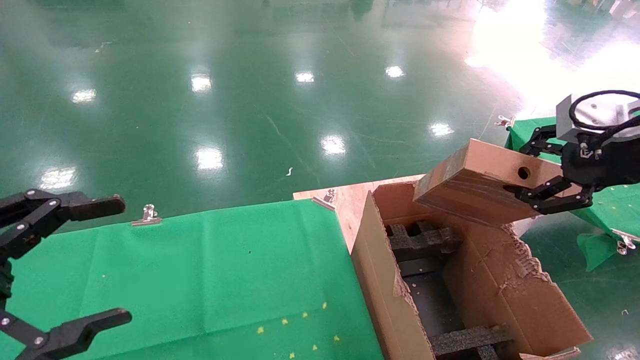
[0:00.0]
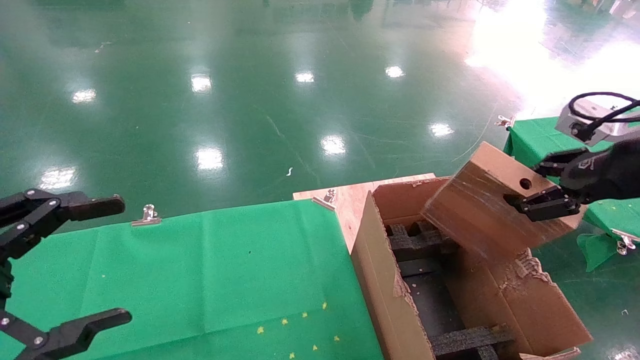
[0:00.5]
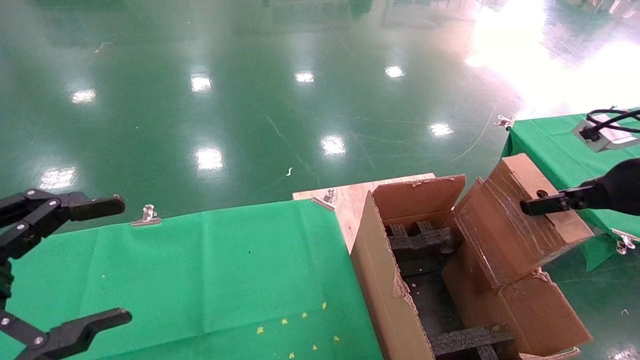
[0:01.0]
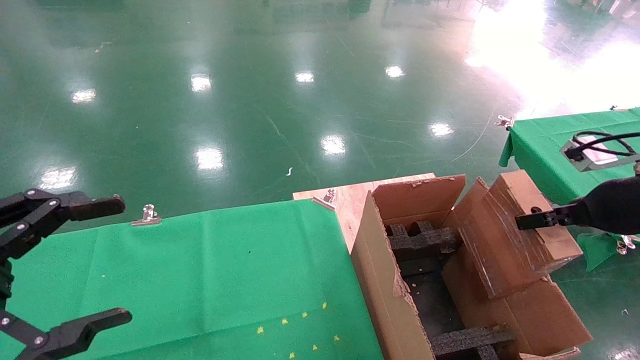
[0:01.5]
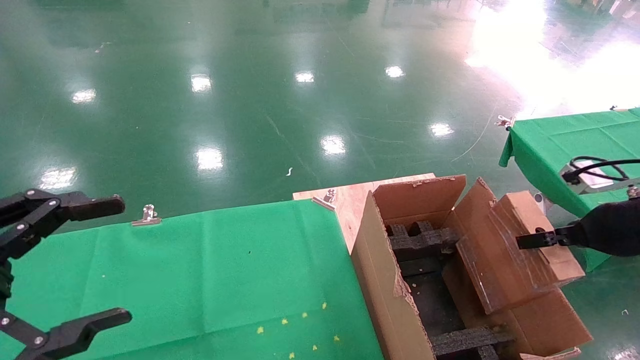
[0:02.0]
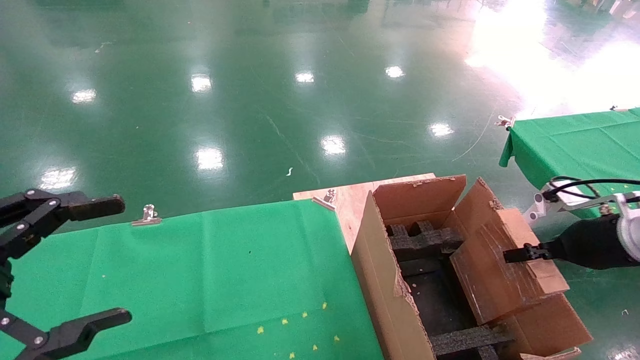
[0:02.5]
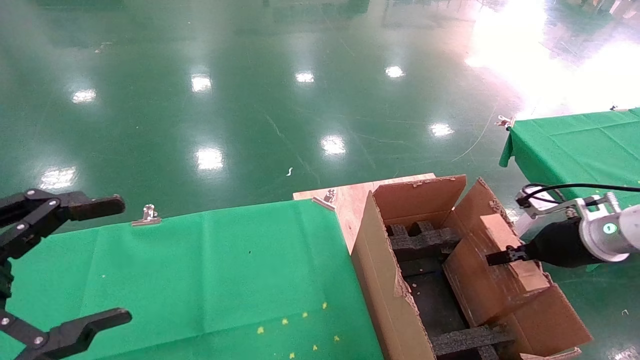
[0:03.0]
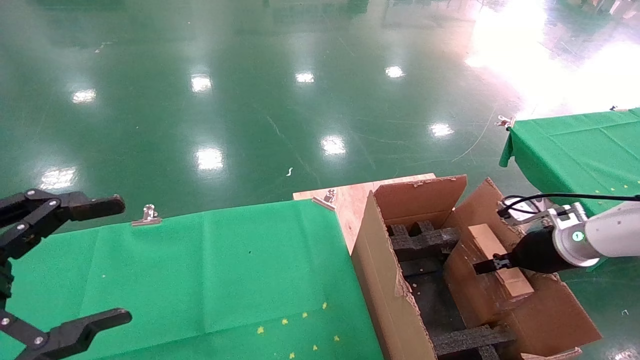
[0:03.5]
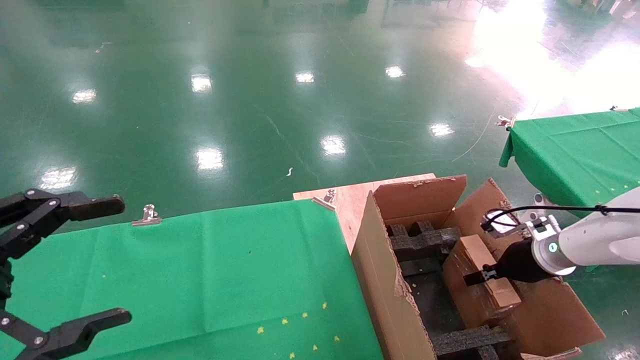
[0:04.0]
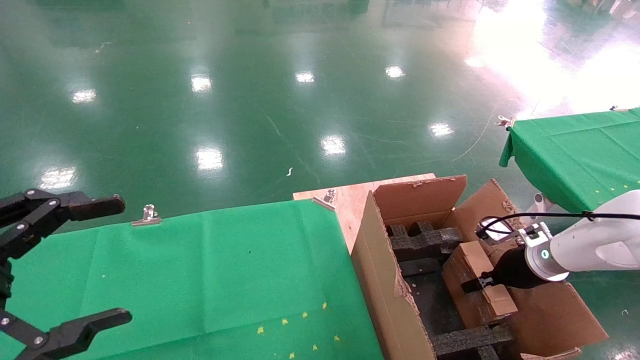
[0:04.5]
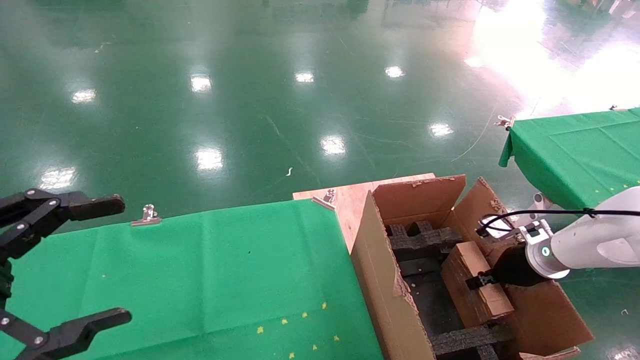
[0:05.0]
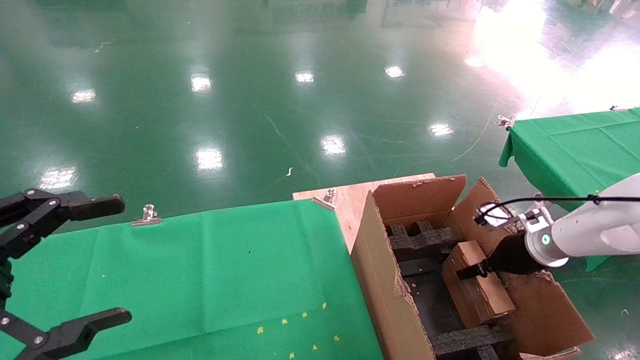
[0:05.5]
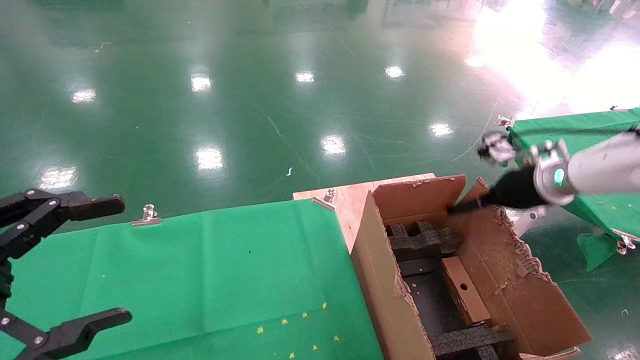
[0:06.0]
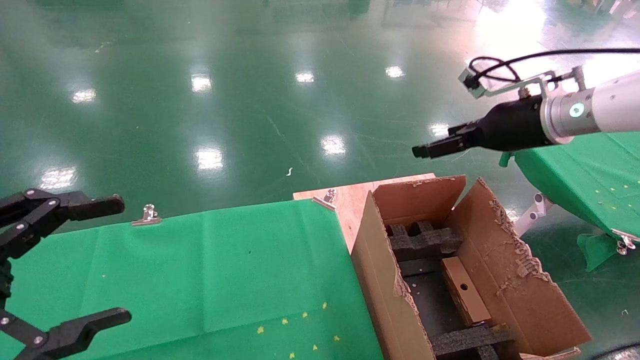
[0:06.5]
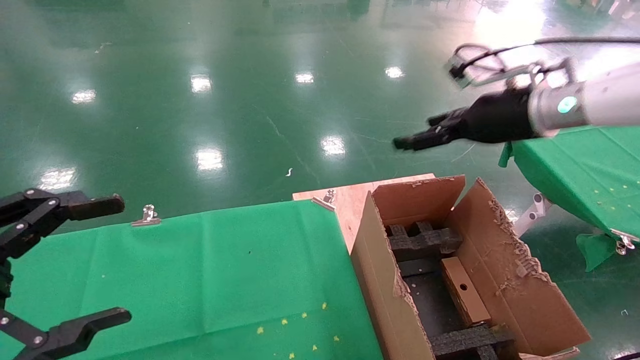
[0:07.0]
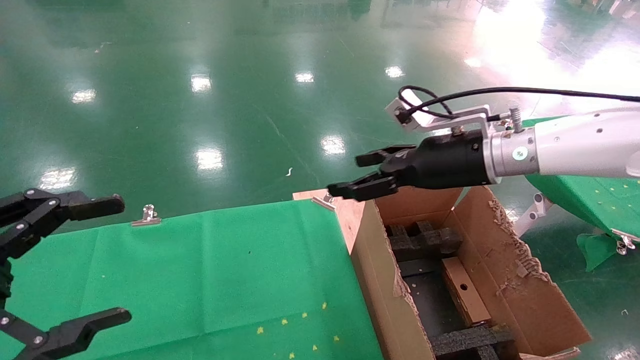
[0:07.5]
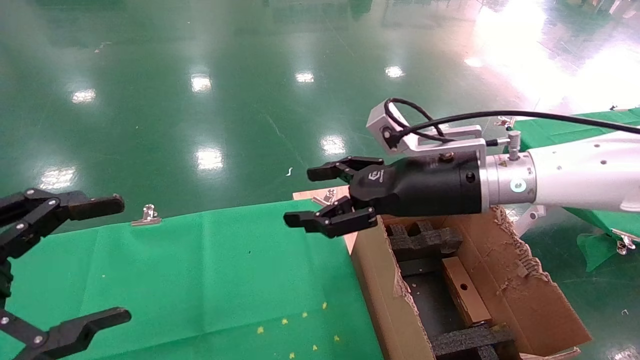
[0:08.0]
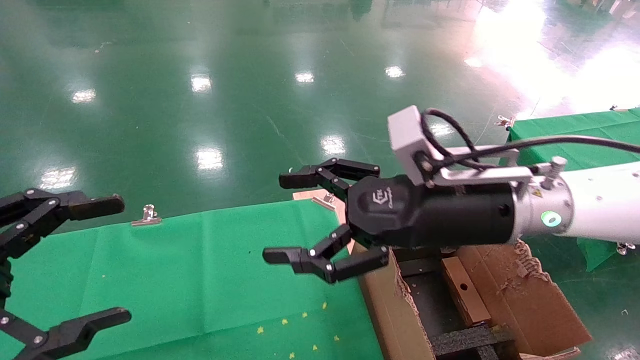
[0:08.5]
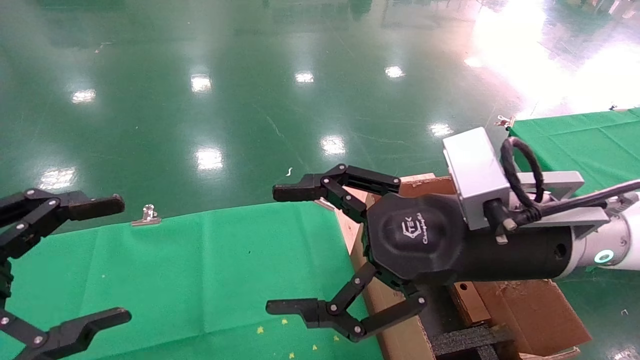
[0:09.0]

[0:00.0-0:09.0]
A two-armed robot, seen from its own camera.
Task of the whole recording: using a robotic arm to pick up a cardboard box and palace it the carton.
Step, 0:00.0 to 0:06.0: Place the mouse and the power cord paper box into the container.
0:00.0 to 0:02.0: The right gripper heads downward, covering approximately 15 cm.
0:02.0 to 0:04.5: The right gripper travels downward and forward by some 20 cm.
0:04.5 to 0:07.0: The right gripper heads upward and to the left, covering about 25 cm, and opens.
0:07.0 to 0:09.0: The right gripper travels backward and to the left by roughly 20 cm.

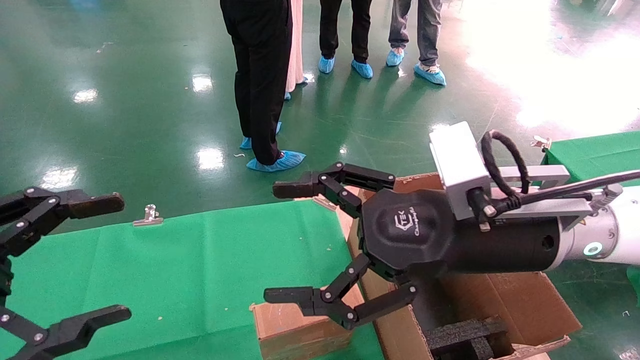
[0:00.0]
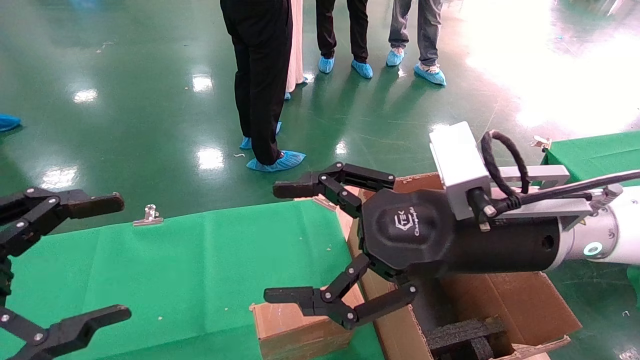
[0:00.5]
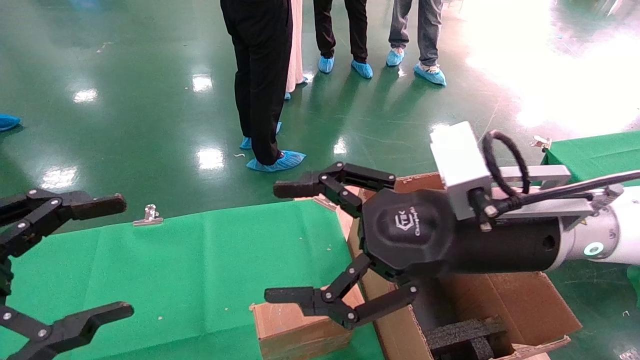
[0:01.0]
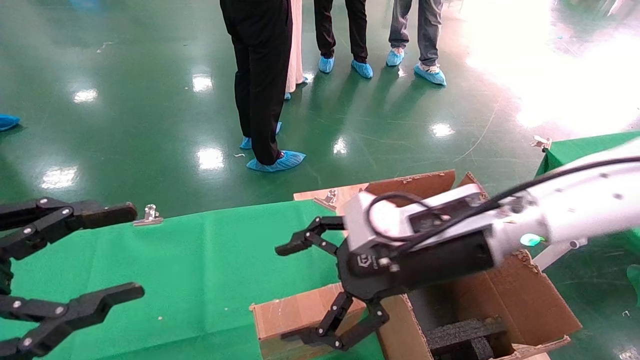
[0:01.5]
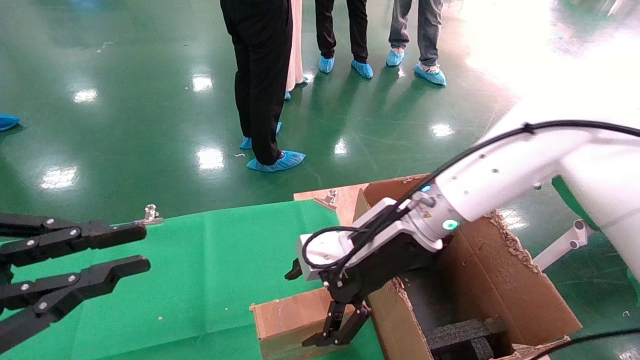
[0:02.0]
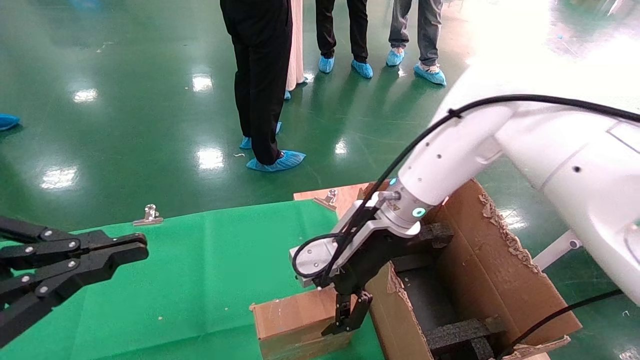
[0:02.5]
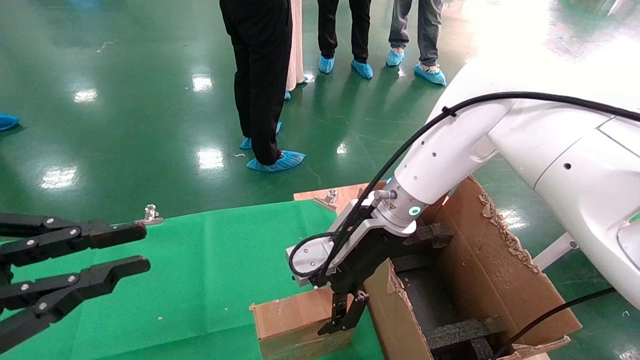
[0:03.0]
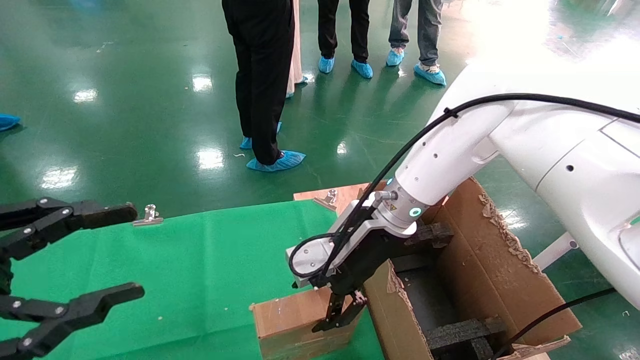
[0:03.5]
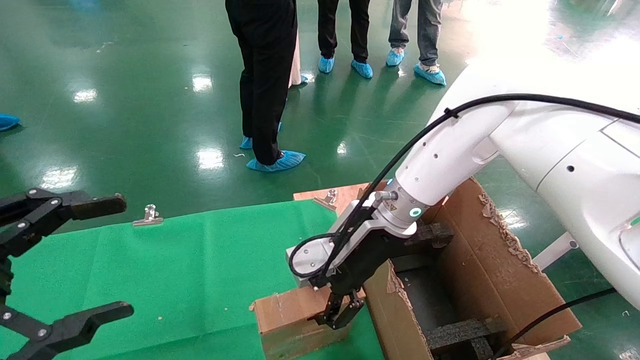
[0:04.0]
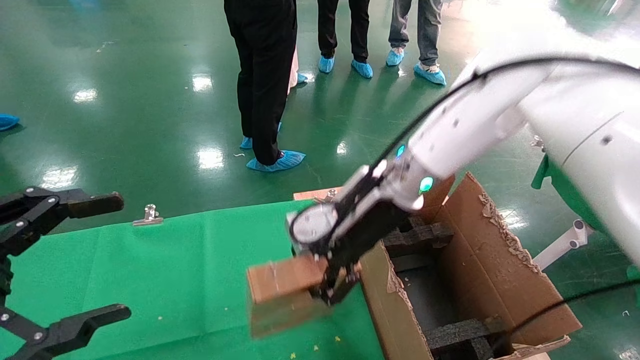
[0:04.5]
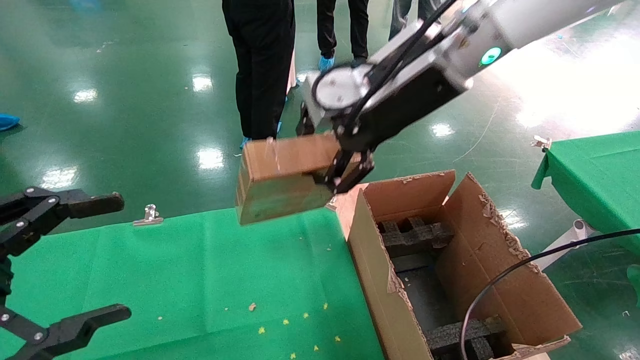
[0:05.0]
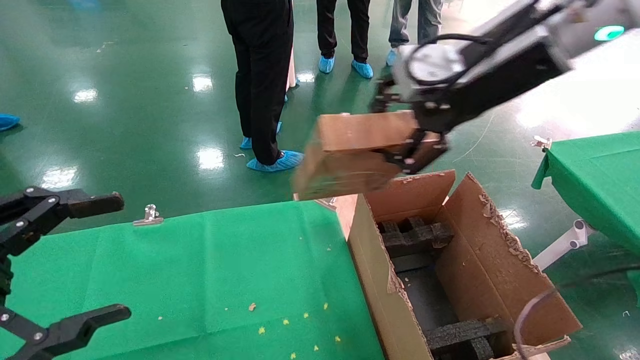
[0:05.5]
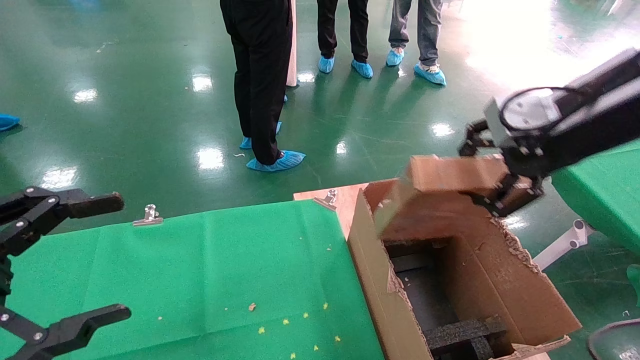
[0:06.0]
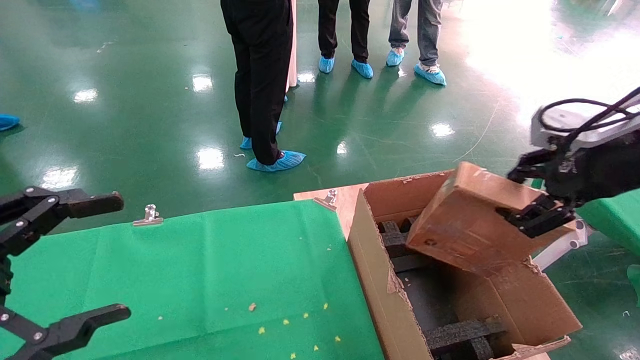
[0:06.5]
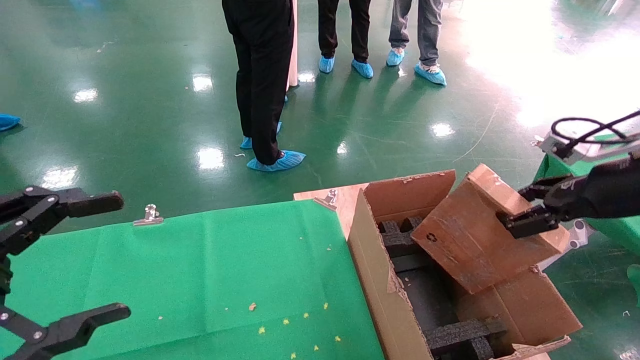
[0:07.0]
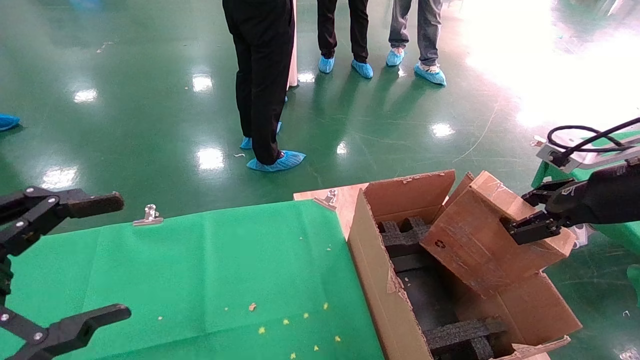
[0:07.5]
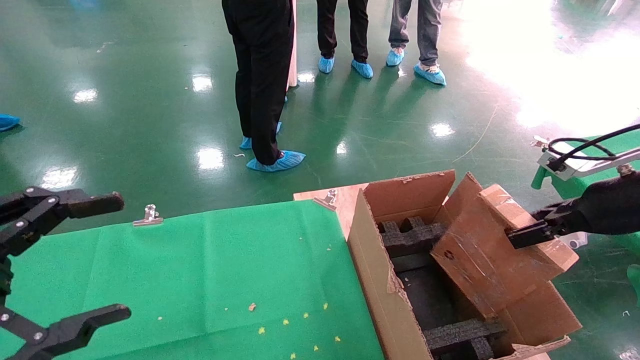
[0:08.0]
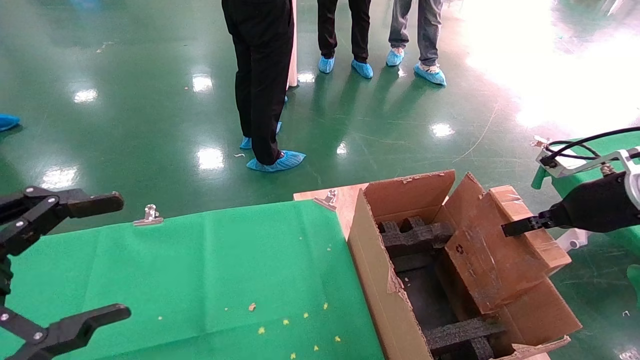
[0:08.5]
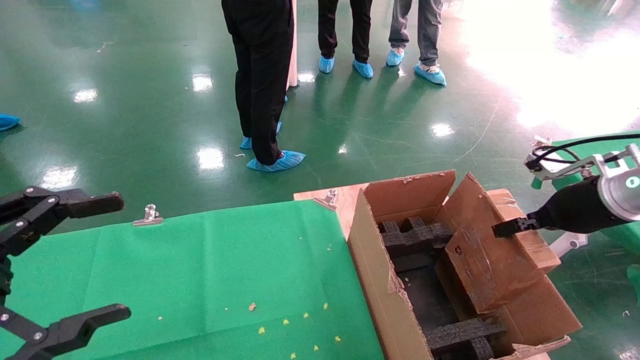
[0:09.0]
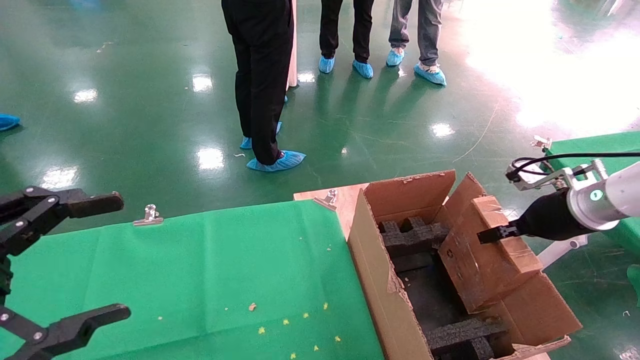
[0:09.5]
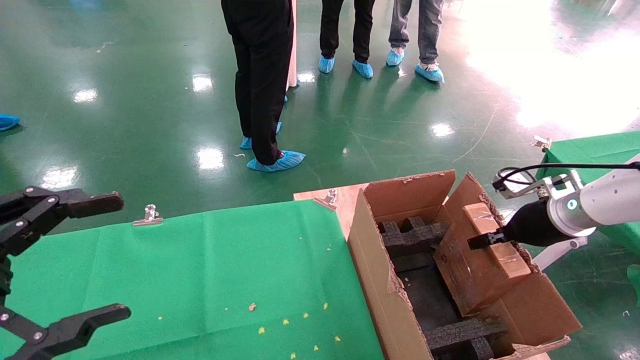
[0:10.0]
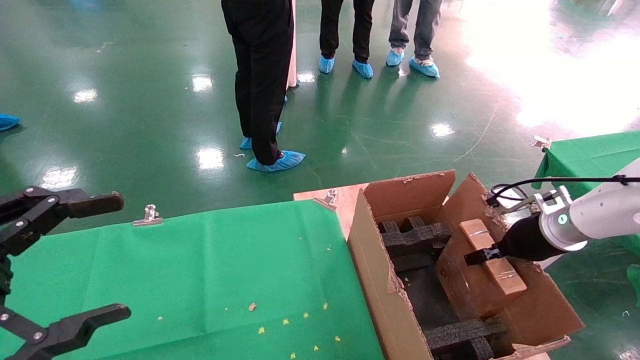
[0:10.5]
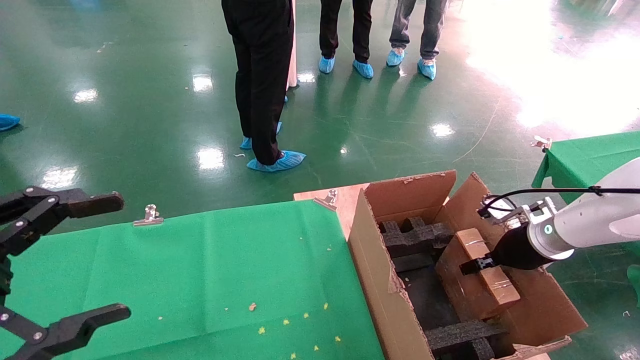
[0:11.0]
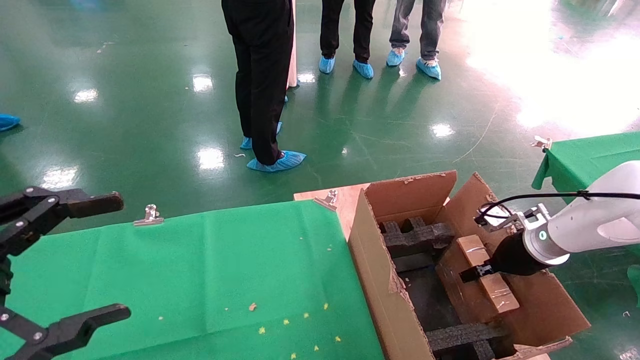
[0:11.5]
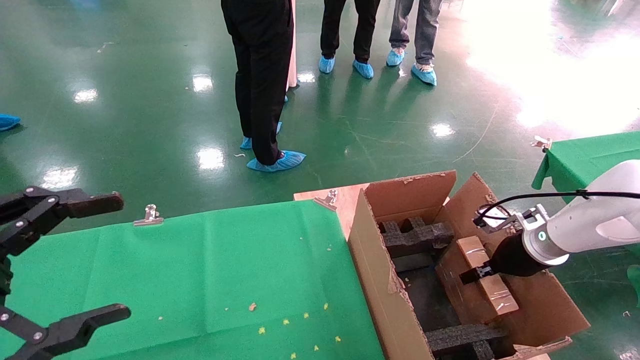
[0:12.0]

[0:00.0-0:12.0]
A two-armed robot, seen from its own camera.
Task of the whole recording: using a robotic arm to pick up a cardboard box and palace it the carton.
Step, 0:01.5 to 0:04.0: Pick up the mouse and the power cord paper box.
0:00.0 to 0:02.0: The left gripper closes its fingers. The right gripper moves forward and to the left, about 10 cm.
0:02.0 to 0:04.0: The right gripper closes its fingers, while the left gripper opens its fingers.
0:04.0 to 0:06.0: The right gripper moves to the right, upward and backward, about 30 cm.
0:06.0 to 0:08.0: The right gripper shifts approximately 15 cm downward and to the right.
0:08.0 to 0:10.0: The right gripper travels forward and downward by roughly 15 cm.
0:10.0 to 0:12.0: The right gripper is displaced downward by some 5 cm.
